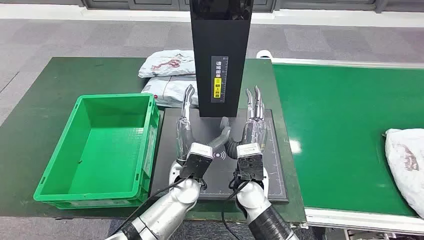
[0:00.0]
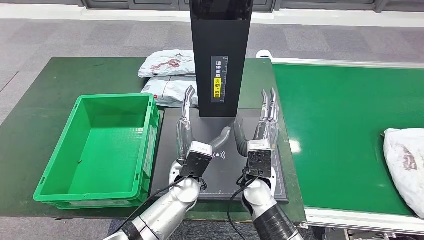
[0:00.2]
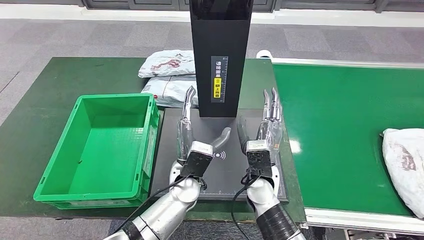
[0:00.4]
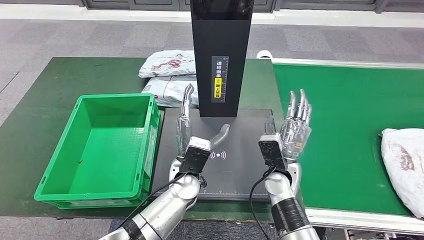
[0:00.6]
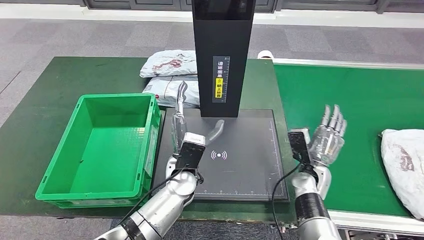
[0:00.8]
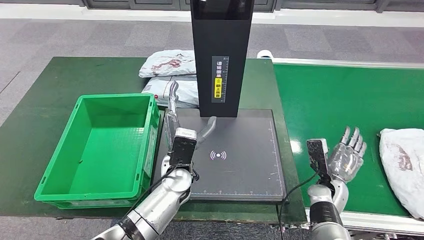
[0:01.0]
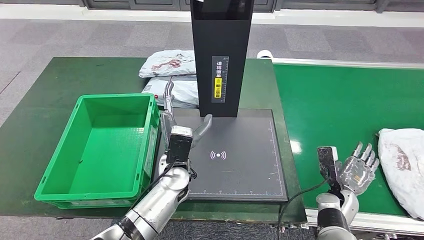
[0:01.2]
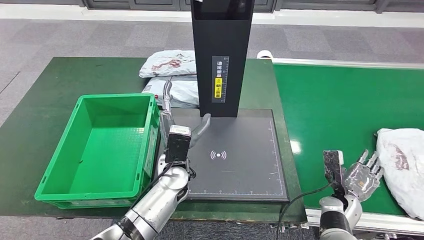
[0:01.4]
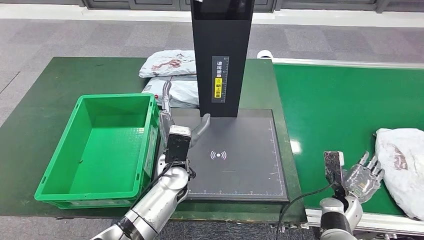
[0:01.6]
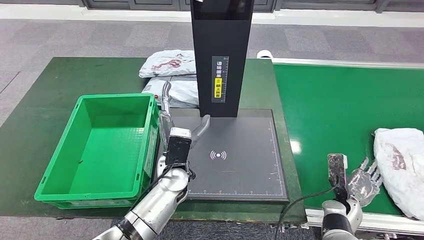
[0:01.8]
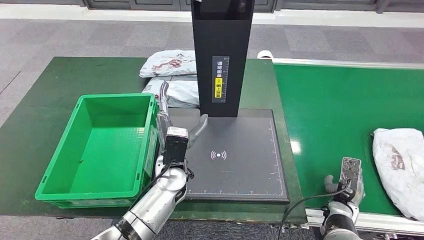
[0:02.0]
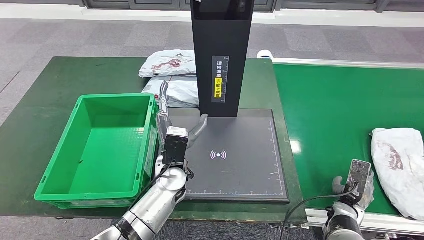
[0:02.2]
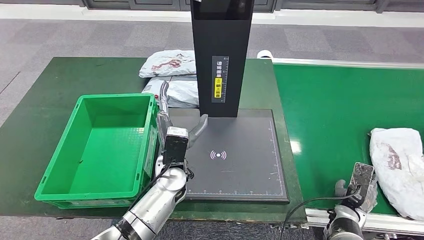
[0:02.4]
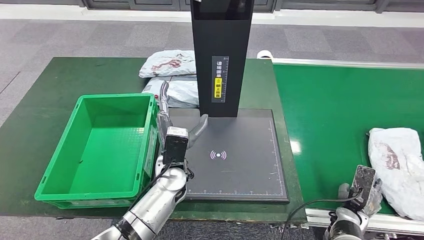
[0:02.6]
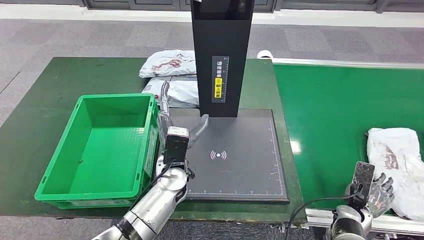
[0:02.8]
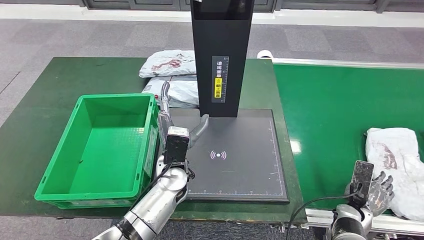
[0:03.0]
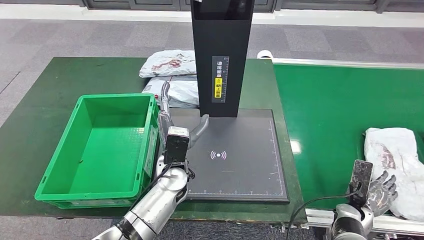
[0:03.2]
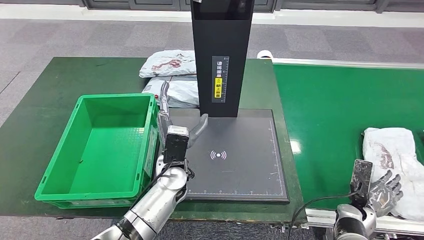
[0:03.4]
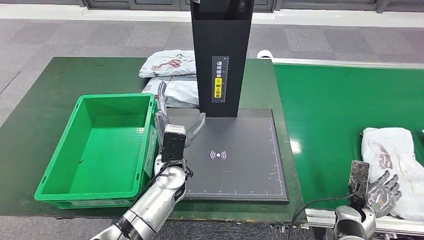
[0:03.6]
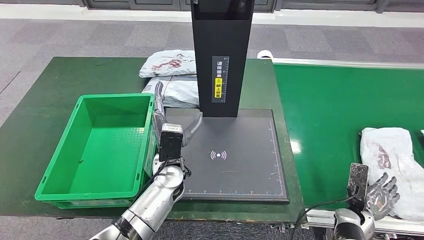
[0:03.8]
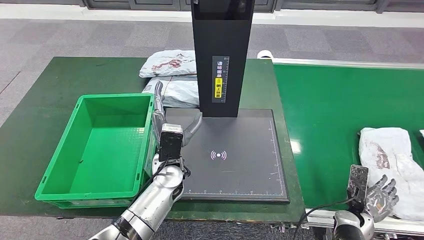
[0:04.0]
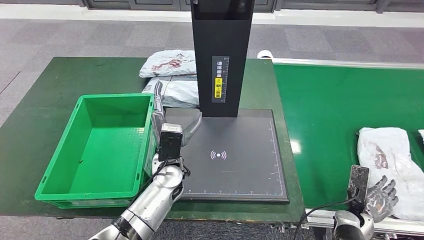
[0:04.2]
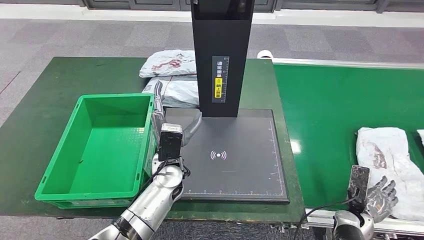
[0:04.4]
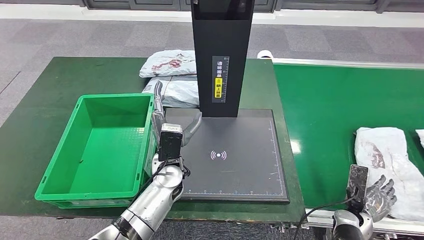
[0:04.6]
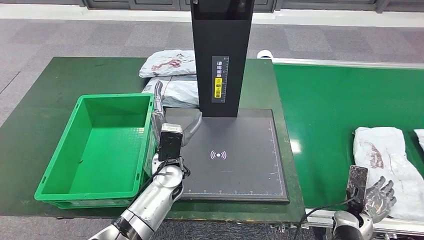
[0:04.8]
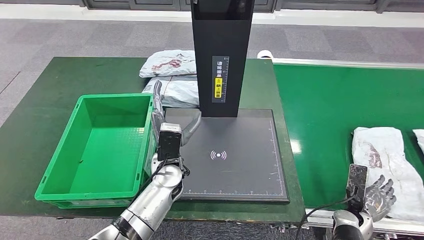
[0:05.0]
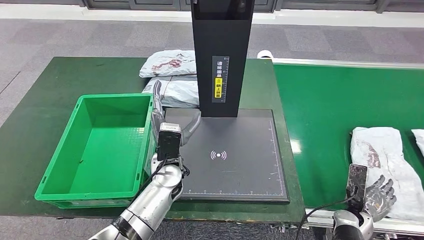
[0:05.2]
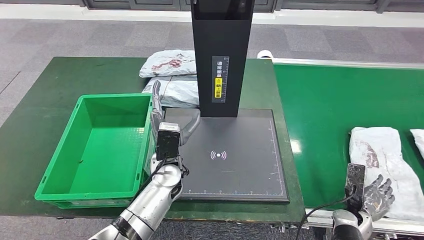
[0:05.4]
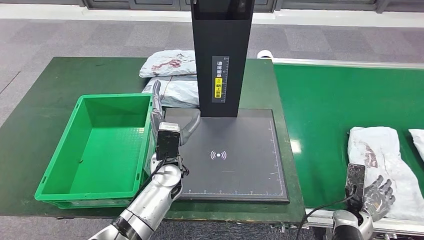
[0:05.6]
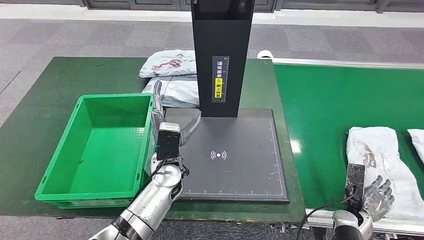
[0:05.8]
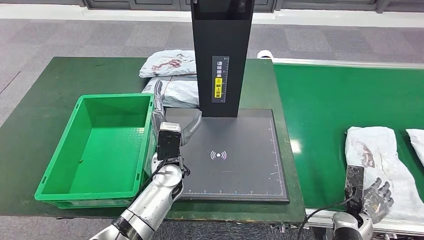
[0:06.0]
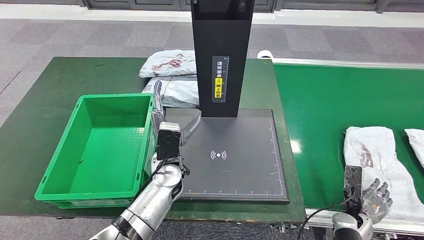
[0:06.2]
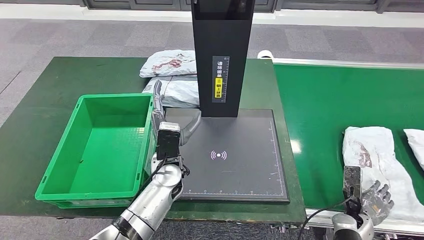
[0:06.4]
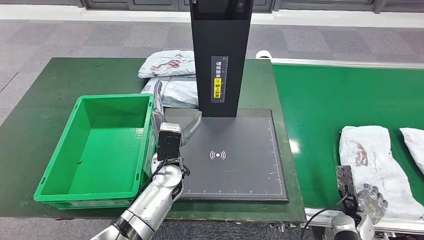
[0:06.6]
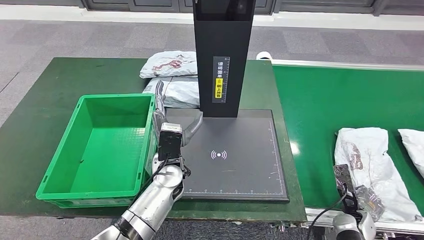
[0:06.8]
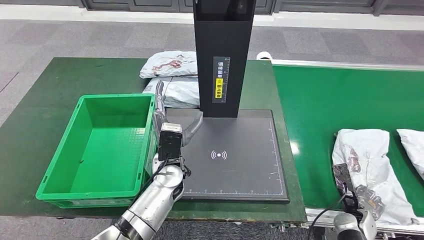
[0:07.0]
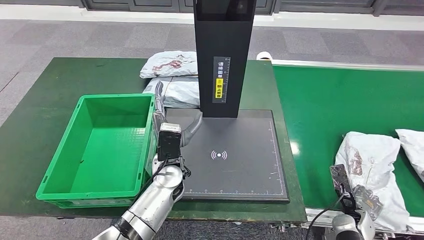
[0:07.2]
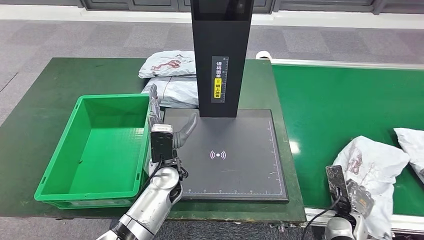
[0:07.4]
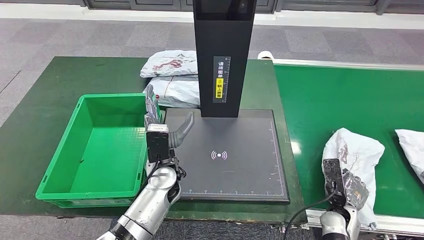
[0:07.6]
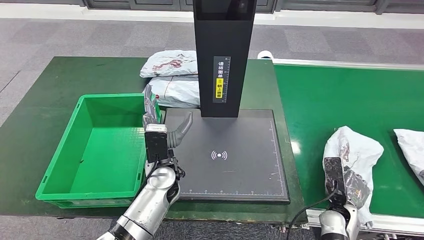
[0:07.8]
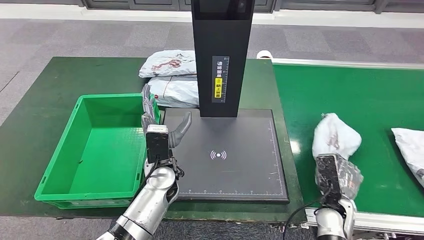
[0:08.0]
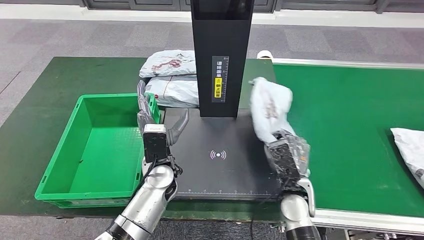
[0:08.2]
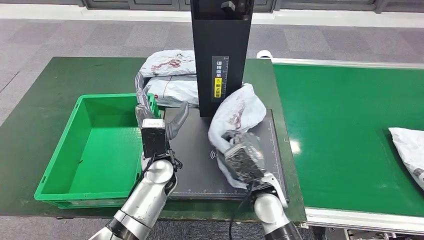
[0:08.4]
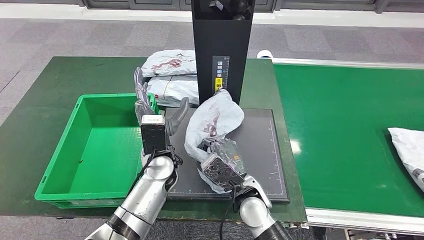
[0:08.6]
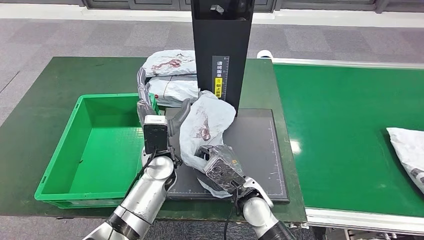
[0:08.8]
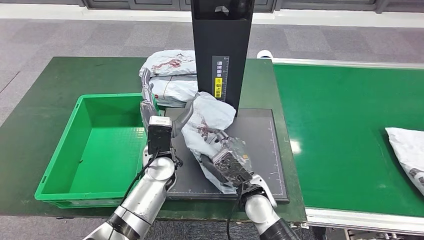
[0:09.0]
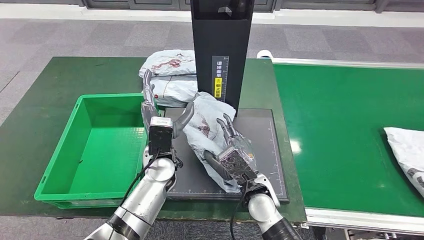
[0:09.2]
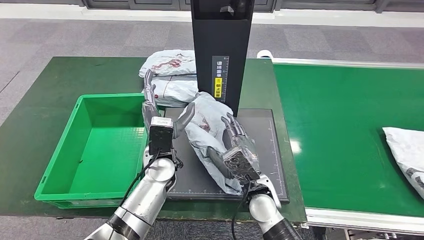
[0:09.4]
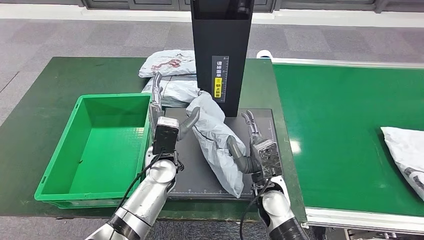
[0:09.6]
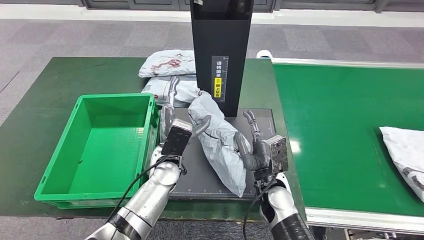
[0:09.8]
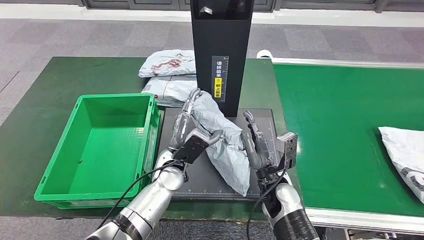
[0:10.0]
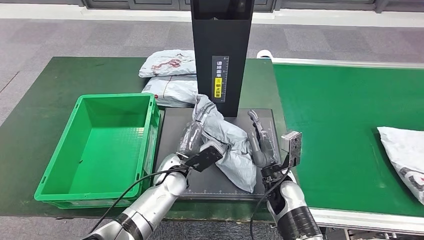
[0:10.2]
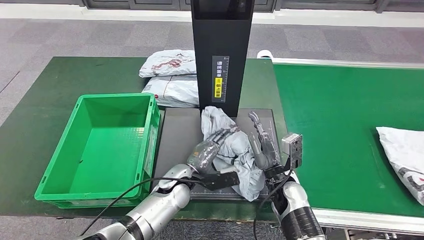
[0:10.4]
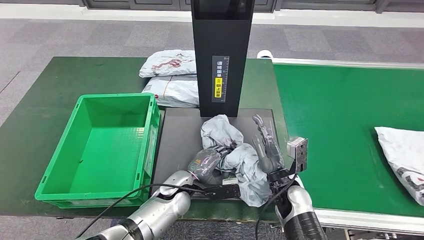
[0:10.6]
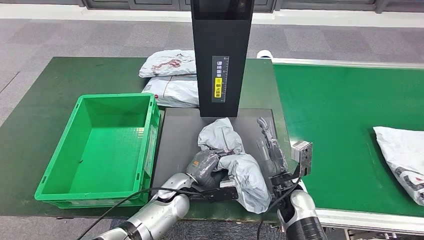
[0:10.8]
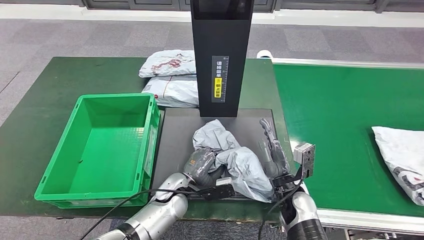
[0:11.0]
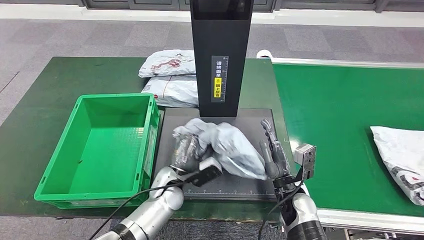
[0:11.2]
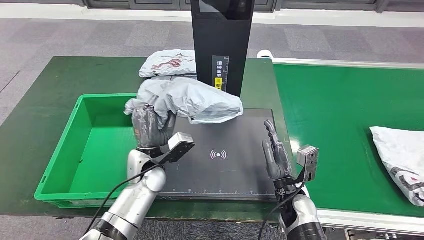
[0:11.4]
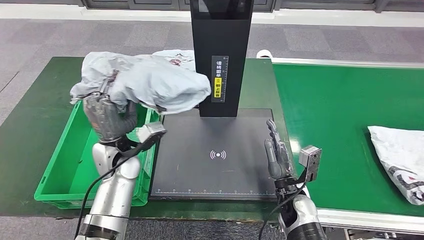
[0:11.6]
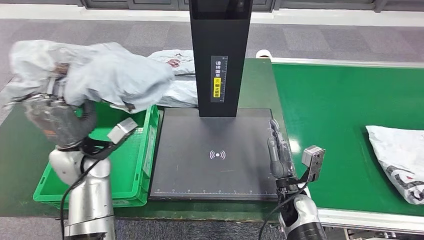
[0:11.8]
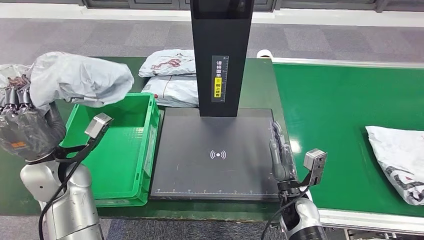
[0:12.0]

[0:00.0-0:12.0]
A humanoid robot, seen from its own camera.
Step, 0:00.0 to 0:08.0: Take the parcel off the conveyor belt.
Step, 0:08.4 to 0:09.2: Place the parcel onto the inbound machine.
Step, 0:09.4 to 0:11.8: Pick up the parcel from the inbound machine.
0:03.0 to 0:06.0: The hands make only small movements.
0:09.0 to 0:10.4: The left hand heads downward, covering some 10 cm; the right hand heads to the right, covering roughly 10 cm.

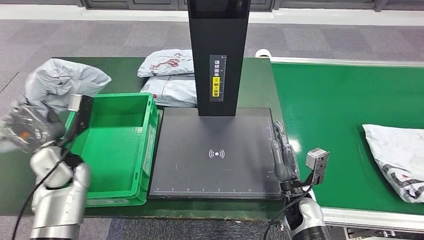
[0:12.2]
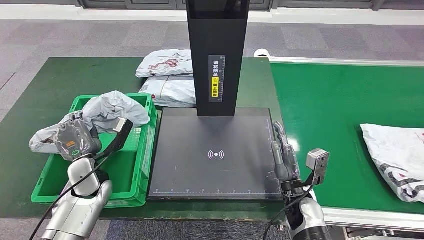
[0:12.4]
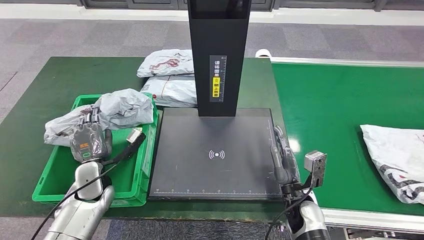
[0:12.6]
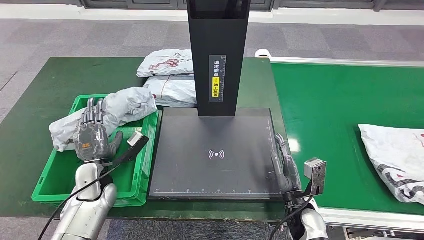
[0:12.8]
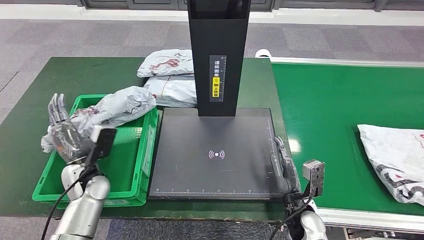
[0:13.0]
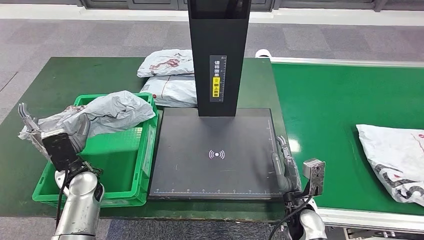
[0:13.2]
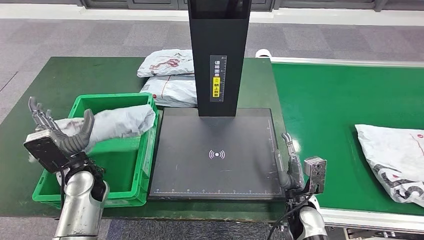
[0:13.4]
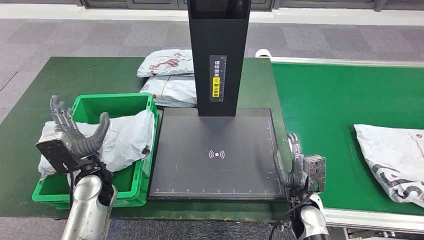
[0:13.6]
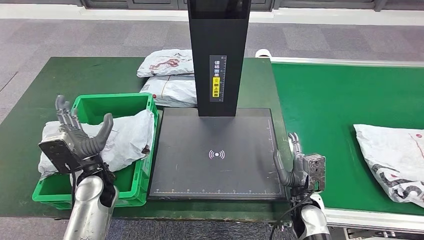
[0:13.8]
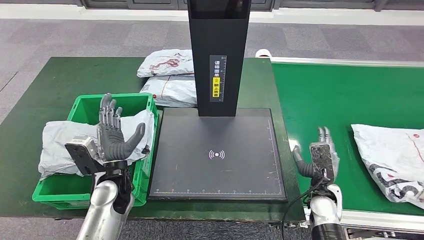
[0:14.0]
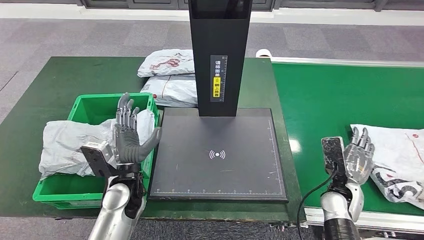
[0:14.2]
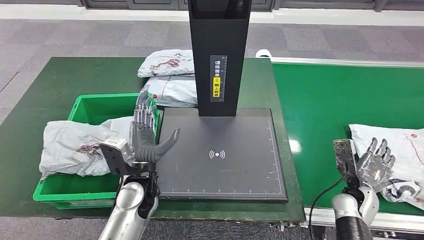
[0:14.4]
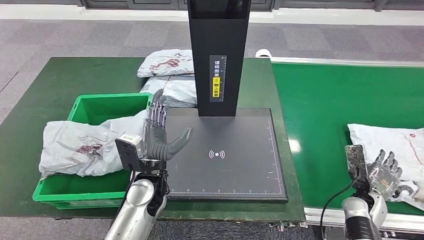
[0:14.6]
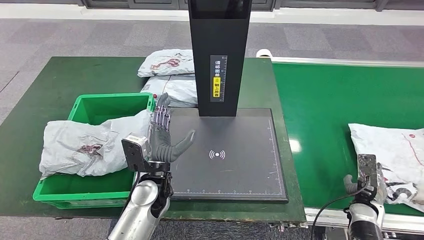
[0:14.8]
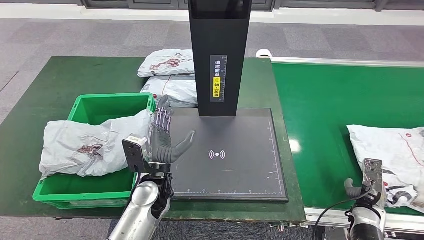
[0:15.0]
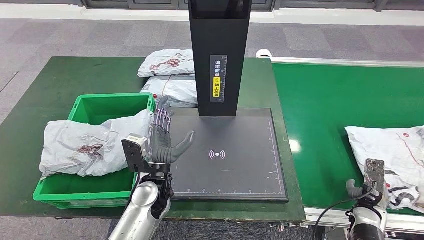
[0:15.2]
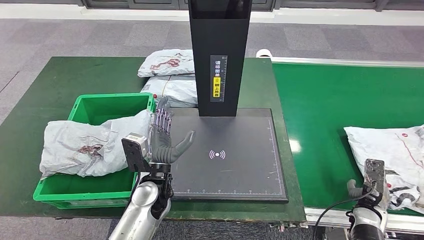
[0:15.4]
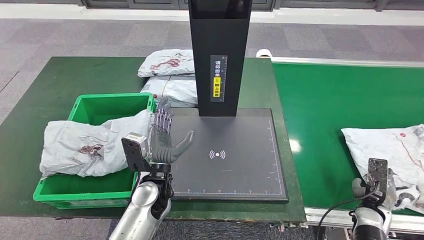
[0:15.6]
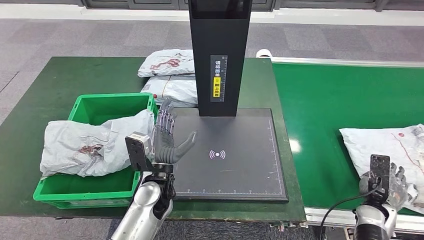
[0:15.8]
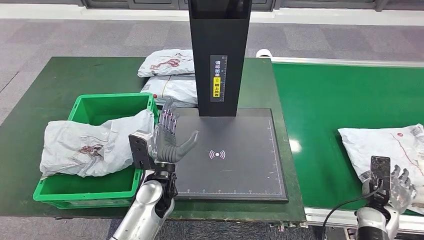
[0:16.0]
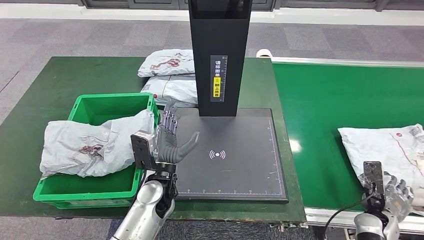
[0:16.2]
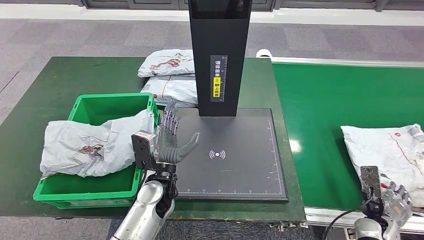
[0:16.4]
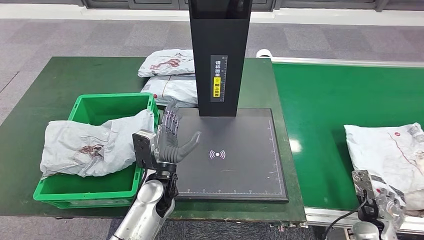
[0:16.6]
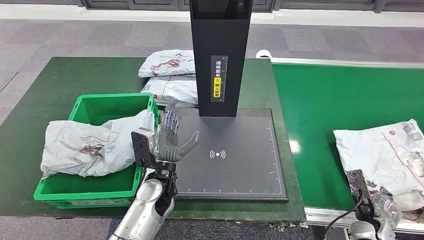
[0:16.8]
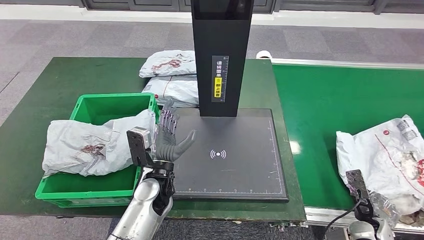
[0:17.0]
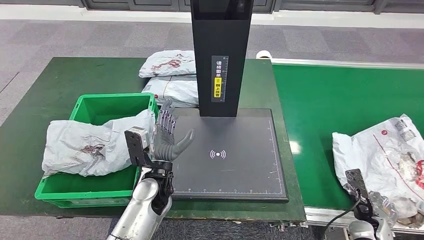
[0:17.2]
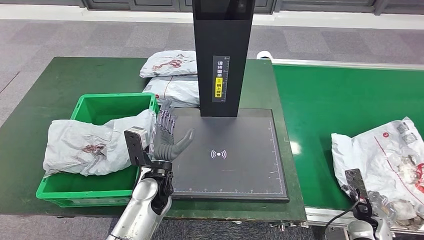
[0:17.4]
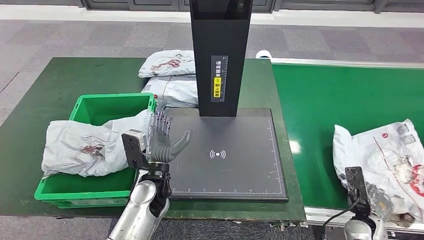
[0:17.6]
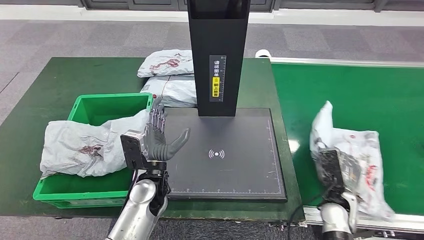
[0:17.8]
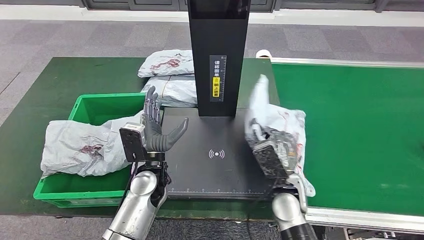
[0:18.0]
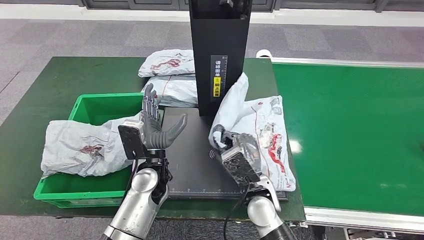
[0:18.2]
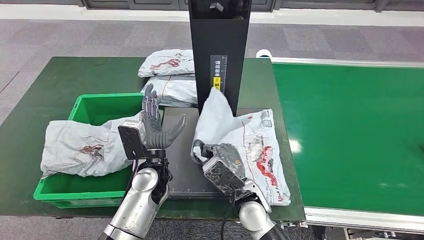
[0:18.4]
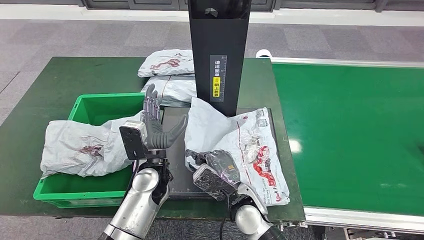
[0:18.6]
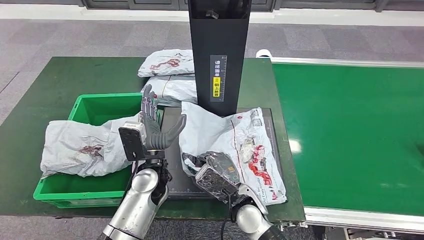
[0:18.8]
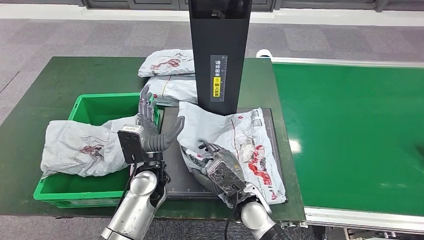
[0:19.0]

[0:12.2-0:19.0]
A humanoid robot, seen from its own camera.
Step, 0:12.2 to 0:14.0: Put the parcel inside the courier box.
Step, 0:14.4 to 0:18.2: Pick up the parcel from the conveyor belt.
0:13.6 to 0:15.0: Both hands travel together to the right, about 15 cm.
0:16.2 to 0:17.6: There are only small adjustments of the hands.
